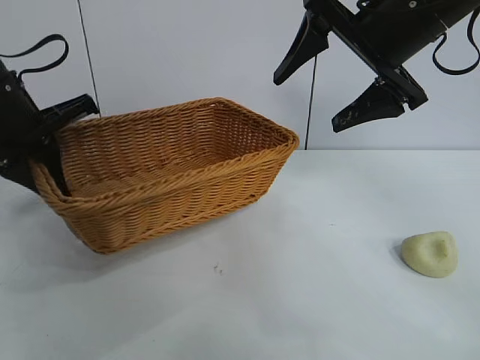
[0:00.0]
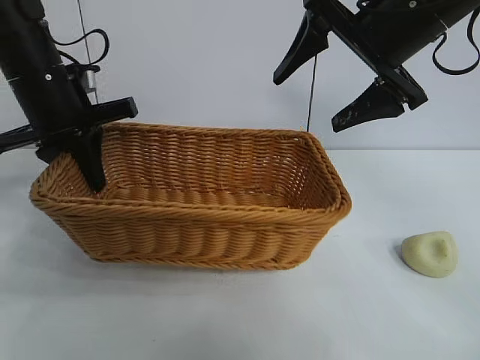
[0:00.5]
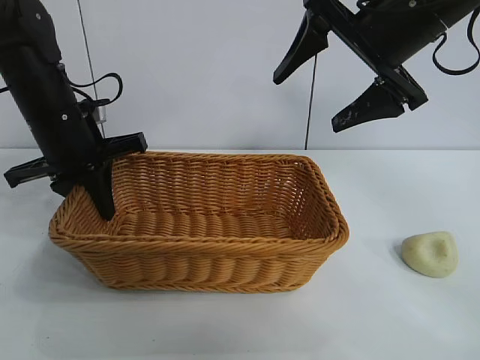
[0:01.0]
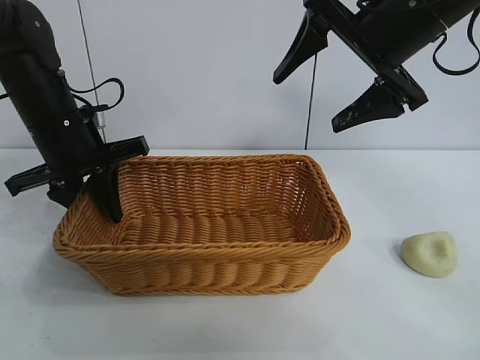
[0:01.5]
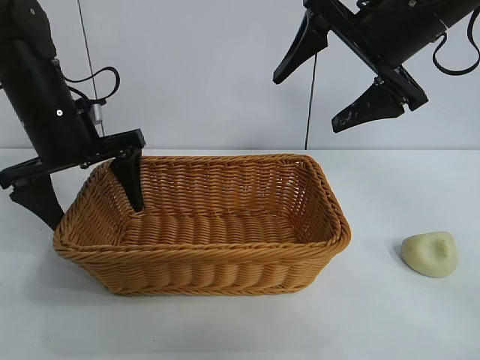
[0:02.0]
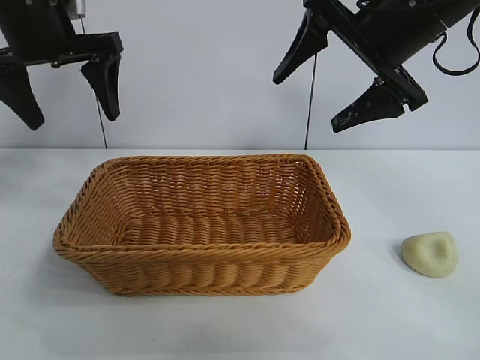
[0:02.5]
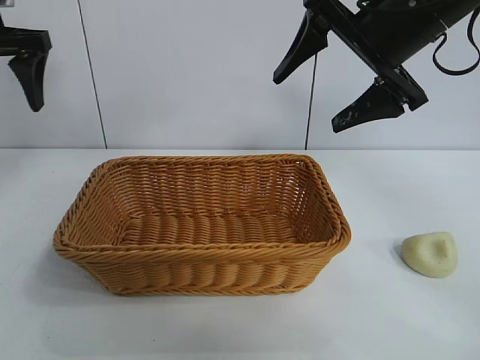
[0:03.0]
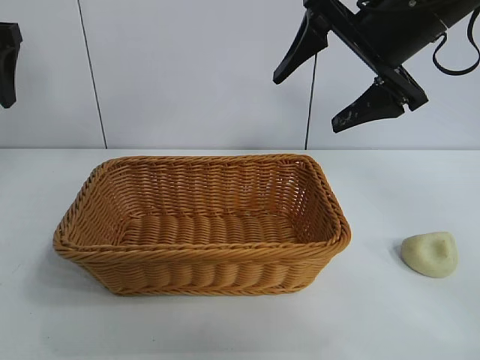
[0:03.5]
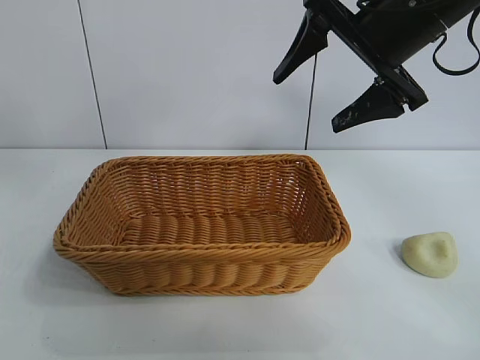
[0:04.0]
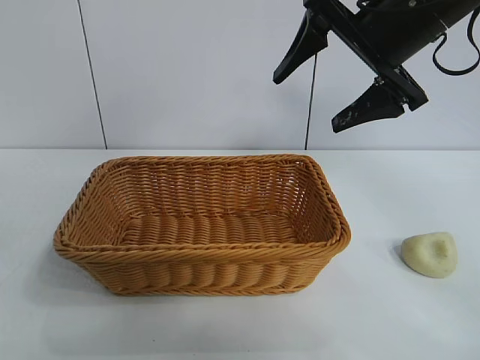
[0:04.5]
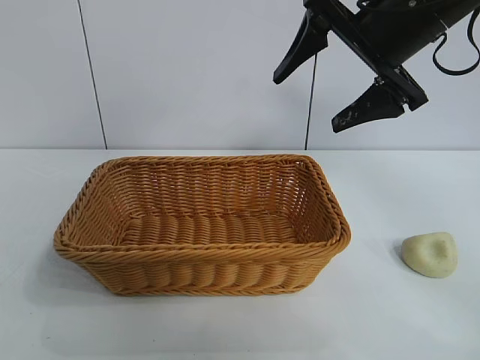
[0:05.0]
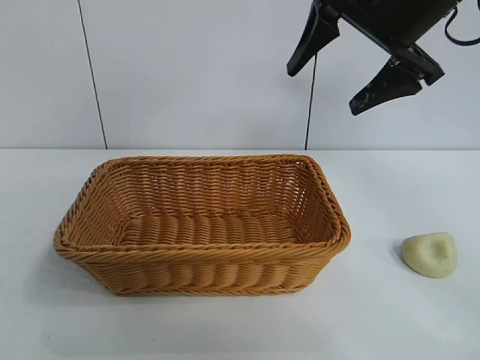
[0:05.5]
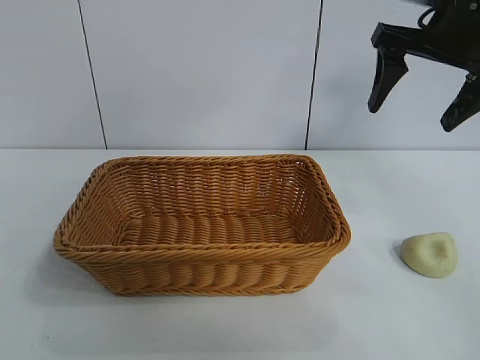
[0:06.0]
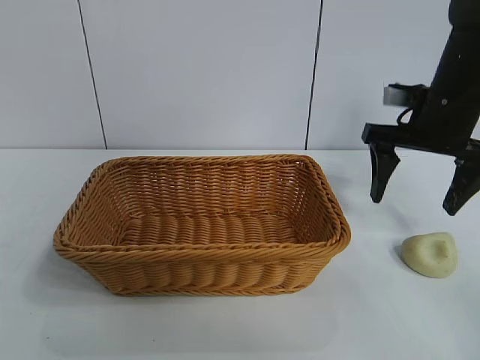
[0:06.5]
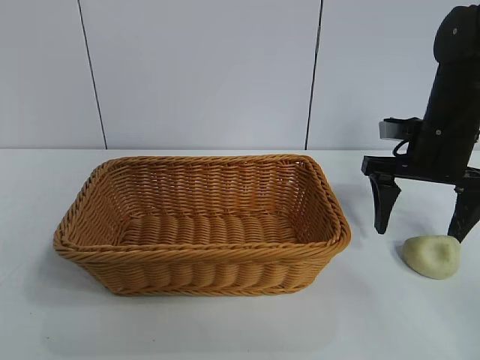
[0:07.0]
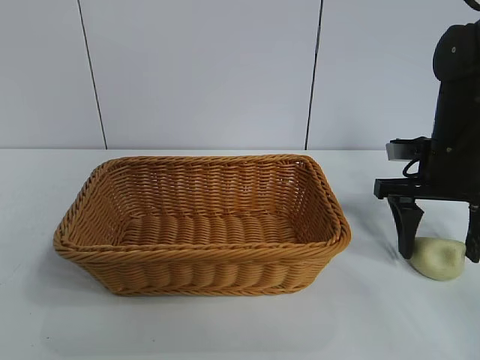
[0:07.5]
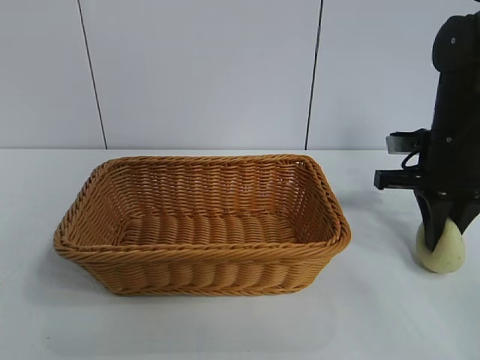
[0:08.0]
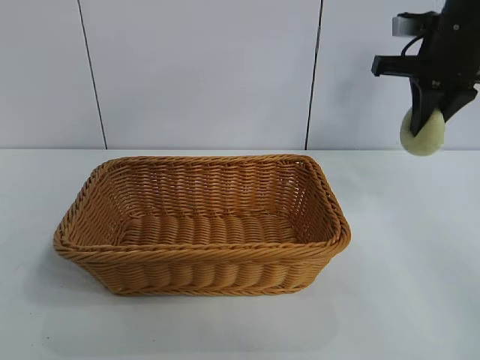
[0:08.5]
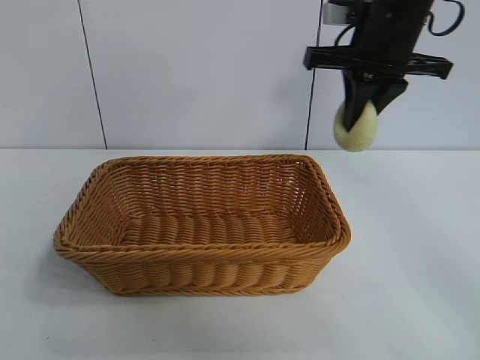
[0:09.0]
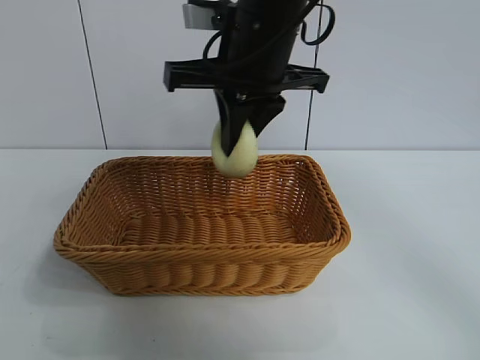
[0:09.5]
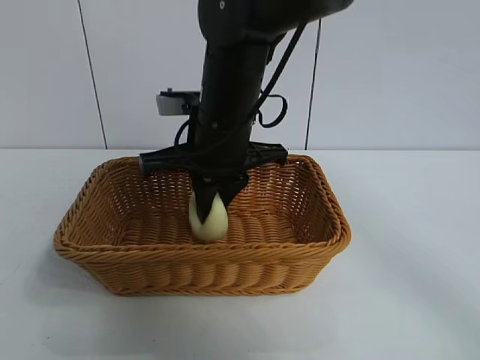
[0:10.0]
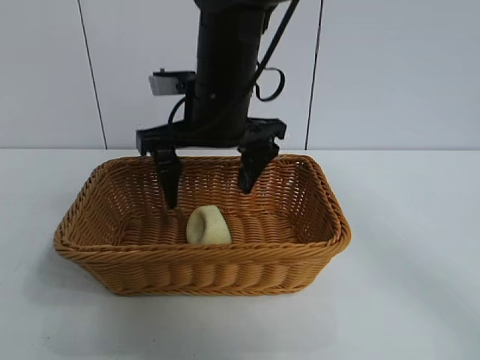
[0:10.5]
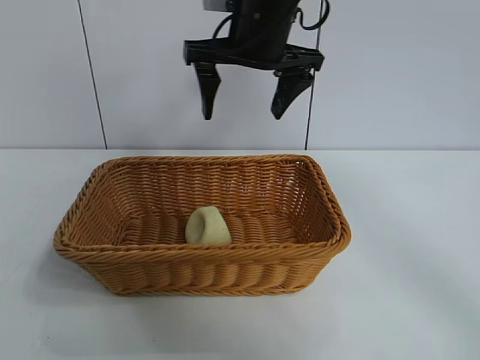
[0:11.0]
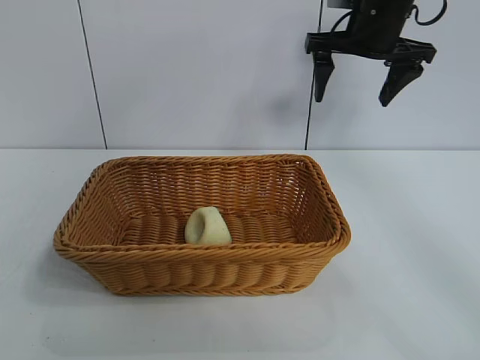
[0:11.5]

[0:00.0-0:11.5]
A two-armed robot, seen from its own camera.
Task of the whole recording: pick up the egg yolk pastry and put it into the basket.
Step, 0:00.0 to 0:01.5: Place the basket in the center of view with left gripper.
Step, 0:02.0 to 0:07.5: Grasp egg yolk pastry with right gripper.
Step, 0:08.0 to 0:10.0: Place the egg yolk pastry in the basket with right gripper.

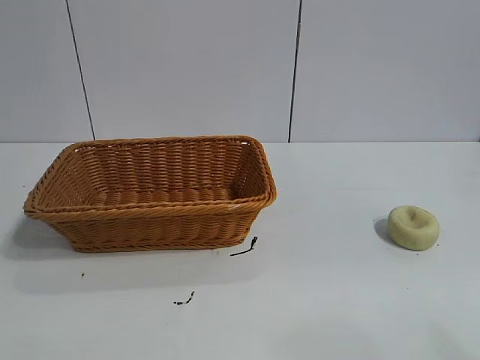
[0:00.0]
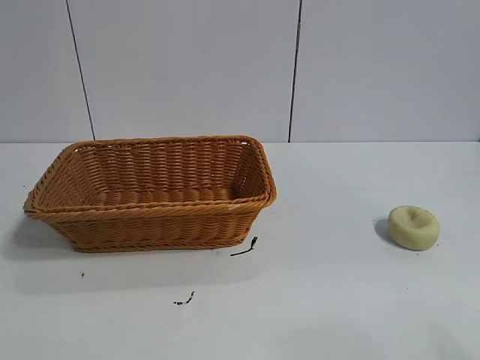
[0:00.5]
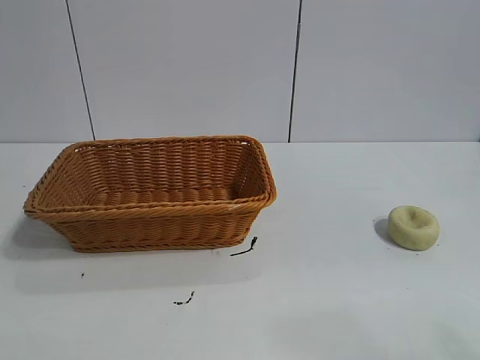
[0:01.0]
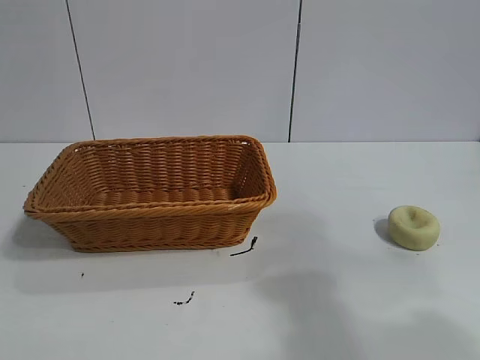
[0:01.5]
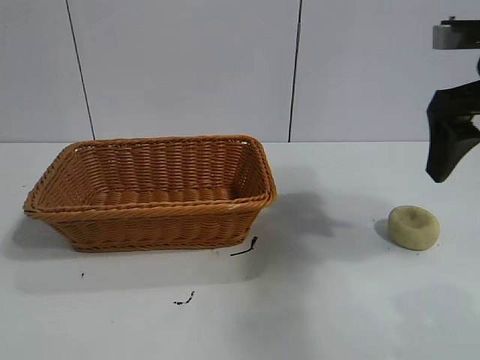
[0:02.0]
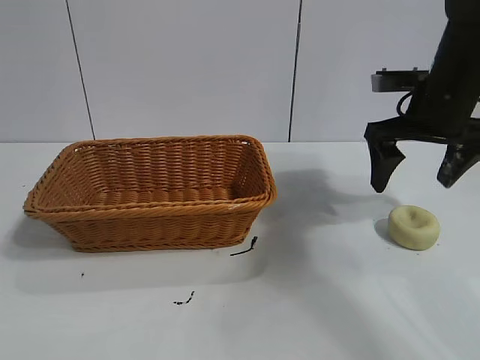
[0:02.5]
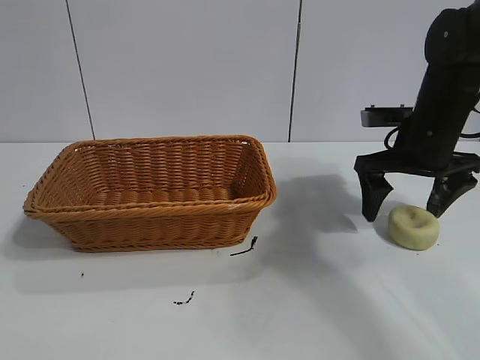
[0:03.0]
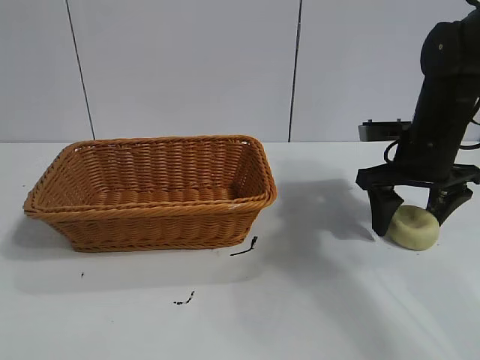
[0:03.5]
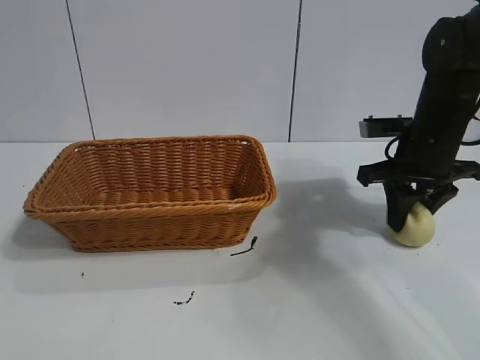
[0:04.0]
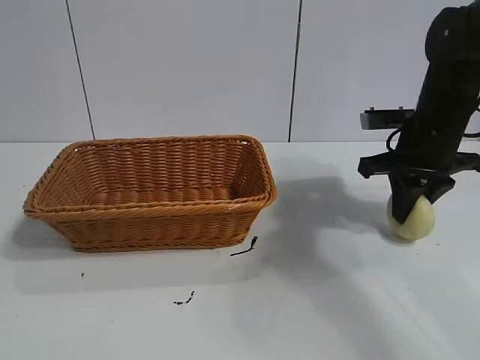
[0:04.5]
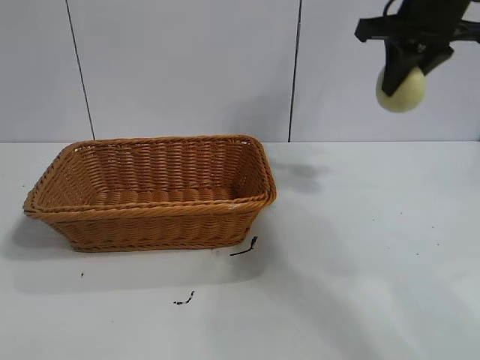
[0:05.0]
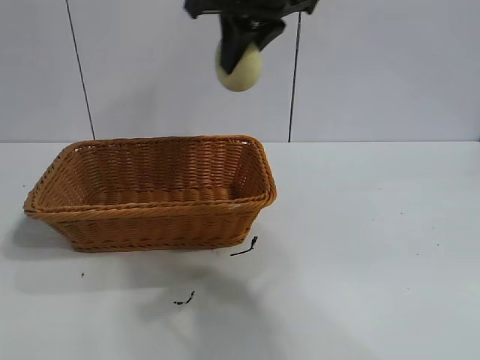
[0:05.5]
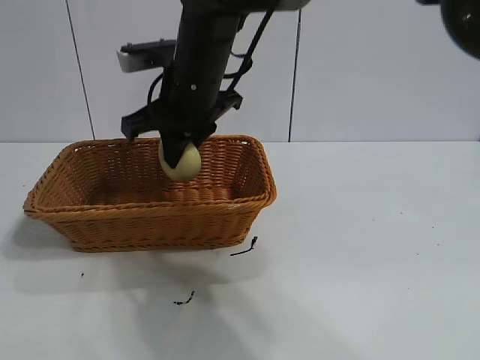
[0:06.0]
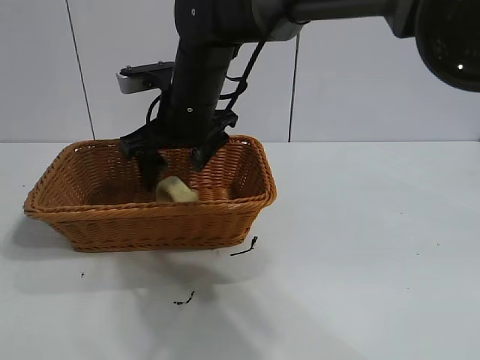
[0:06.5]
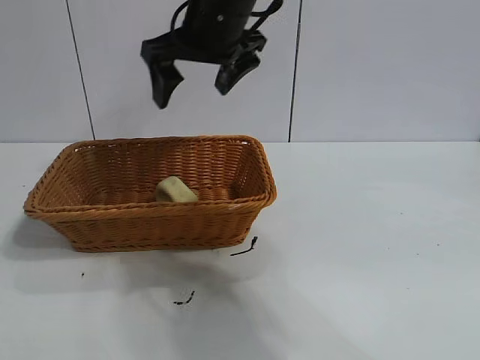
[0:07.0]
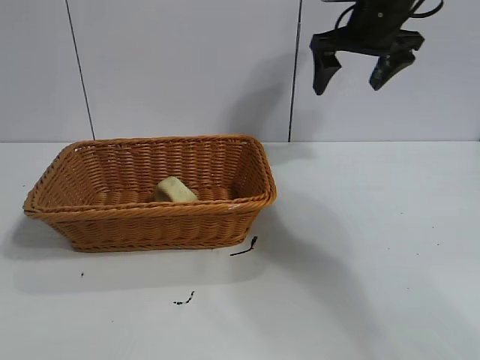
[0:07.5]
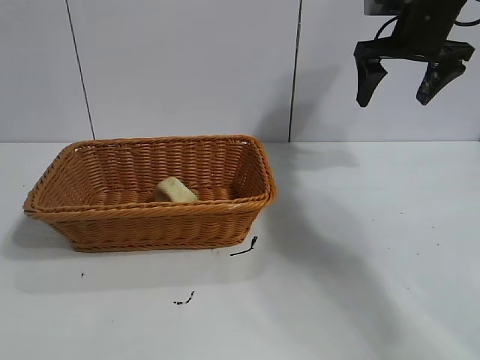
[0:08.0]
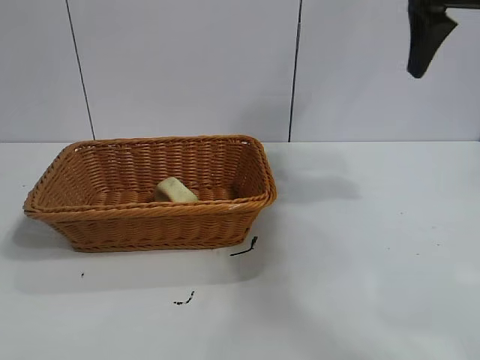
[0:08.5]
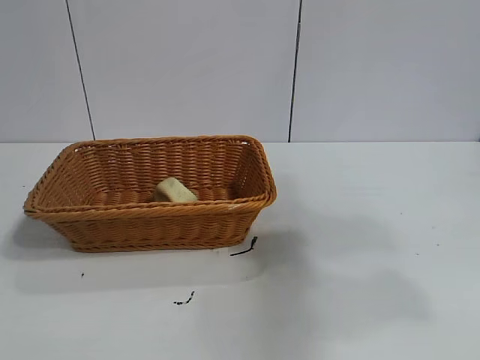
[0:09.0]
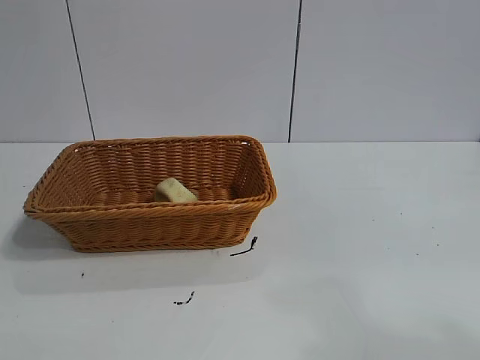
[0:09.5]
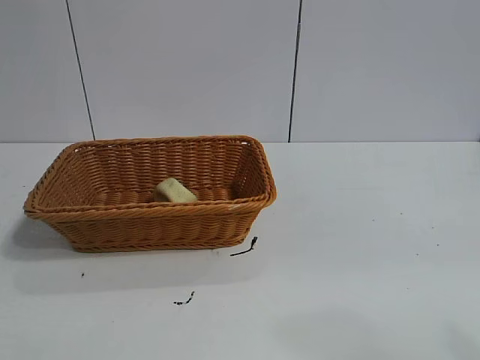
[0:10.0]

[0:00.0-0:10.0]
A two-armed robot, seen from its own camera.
Task of the whole recording: pick up the egg yolk pastry and put it into the basket.
Step, 0:01.0 to 0:03.5: Grasp egg yolk pastry with right gripper.
Step, 0:04.0 to 0:06.5: Place the egg yolk pastry in the basket with right gripper.

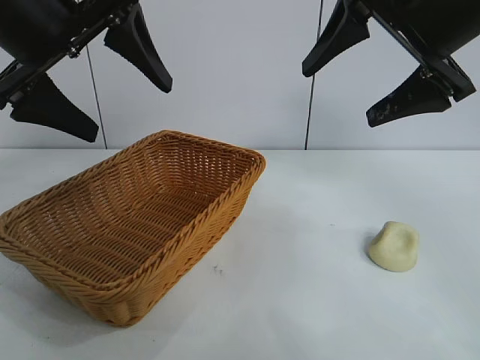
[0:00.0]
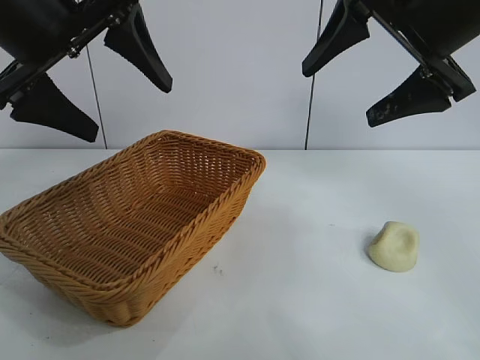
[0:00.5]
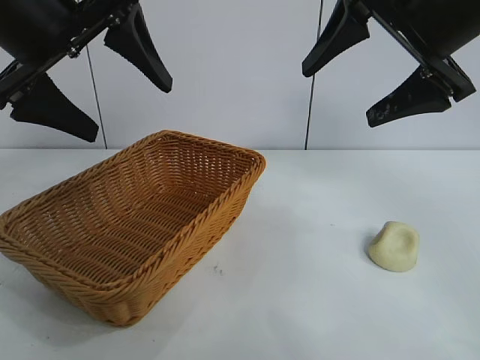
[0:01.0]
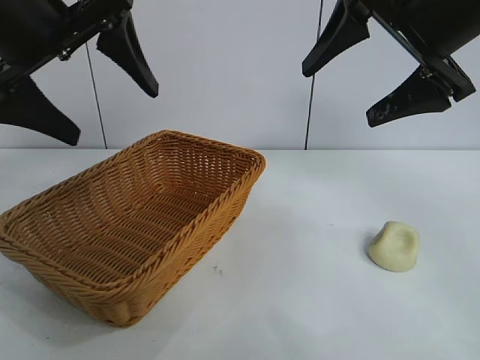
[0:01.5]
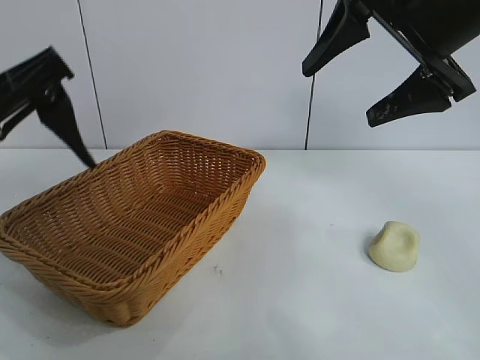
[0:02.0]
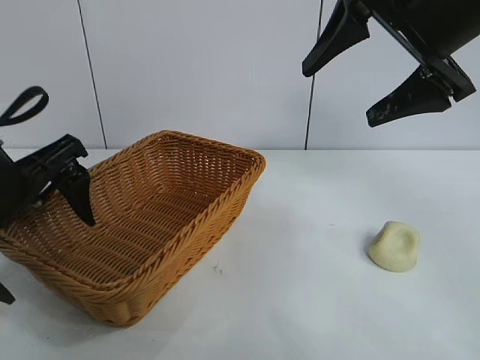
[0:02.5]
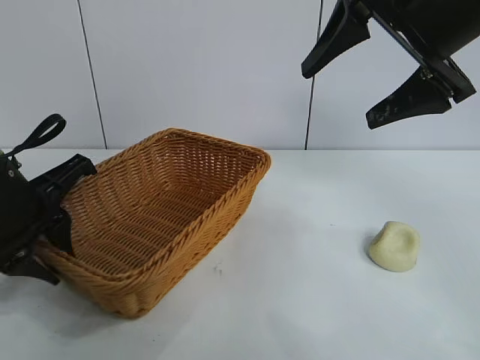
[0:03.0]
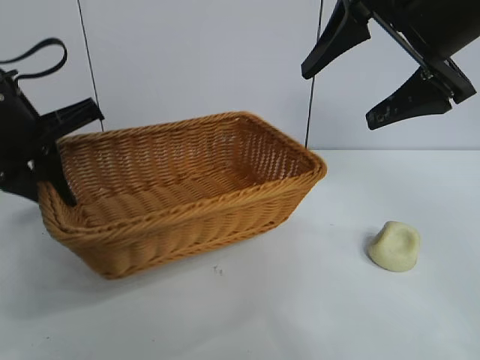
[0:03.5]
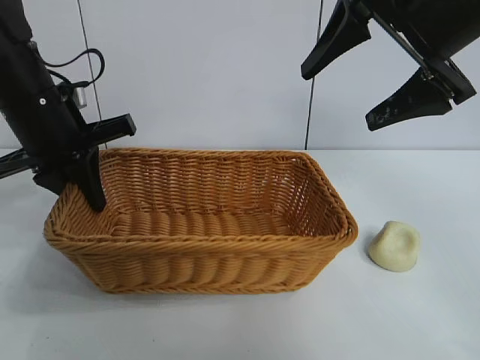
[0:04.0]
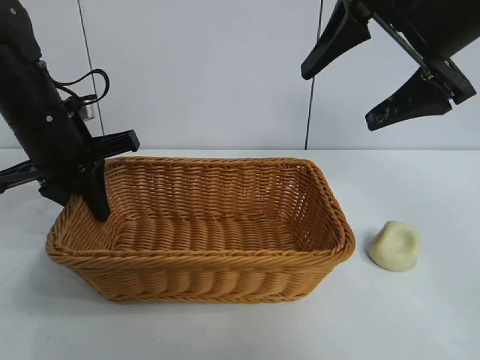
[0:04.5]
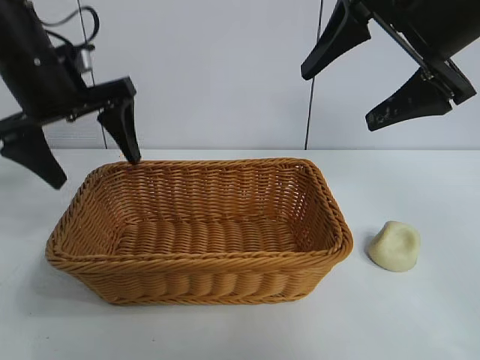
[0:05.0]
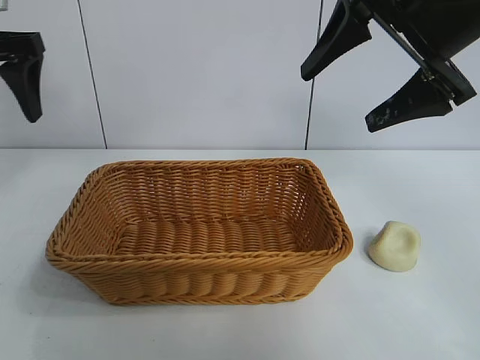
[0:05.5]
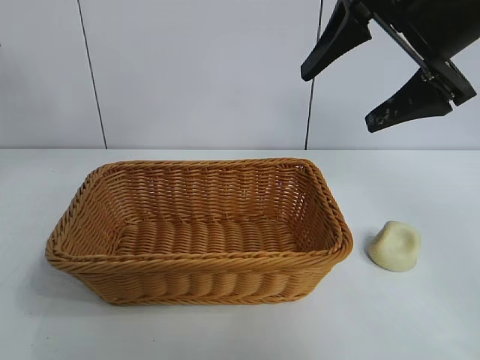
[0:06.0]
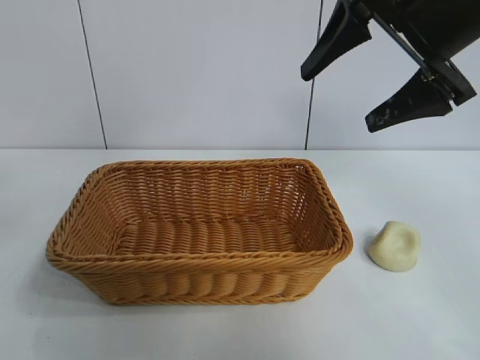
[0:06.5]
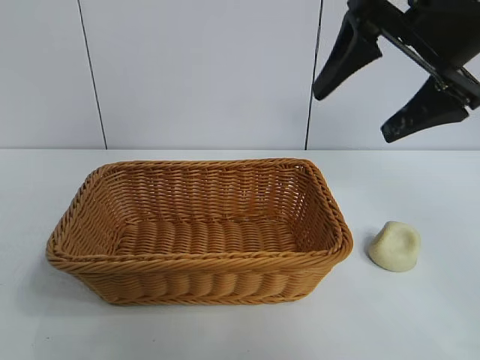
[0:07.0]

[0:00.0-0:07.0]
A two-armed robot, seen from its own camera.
Task of the whole recording: pick up the egg yolk pastry and put it into the basket.
Step, 0:01.5 to 0:03.0: Grasp the basket with left gripper.
Step, 0:03.5 to 0:04.5: Place the basket in the center of view with left gripper.
